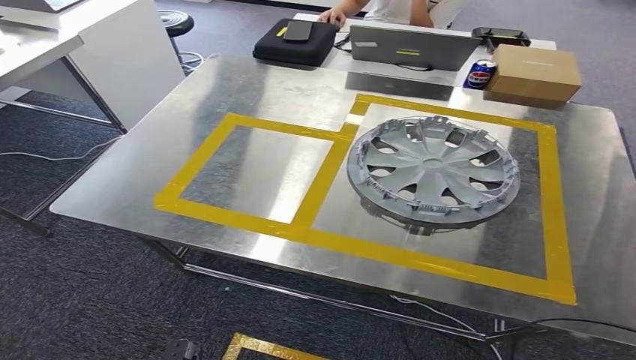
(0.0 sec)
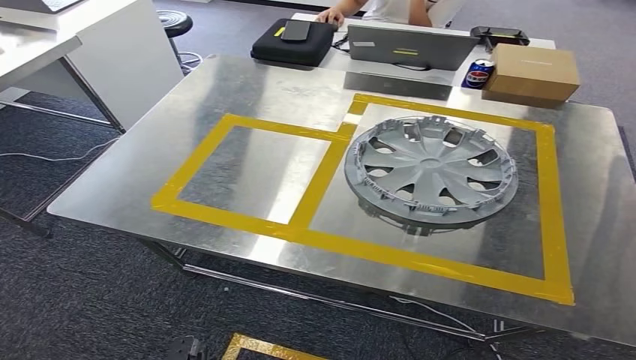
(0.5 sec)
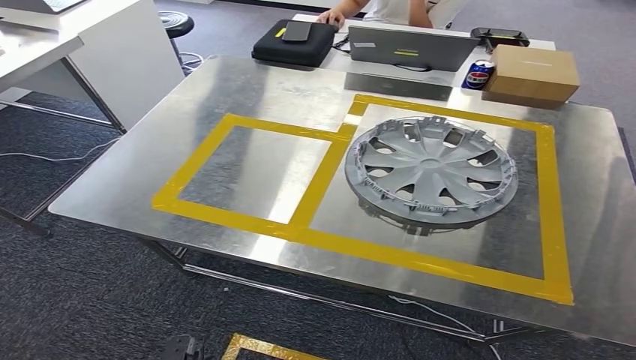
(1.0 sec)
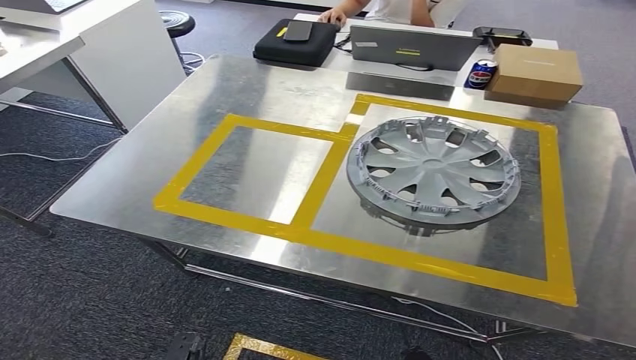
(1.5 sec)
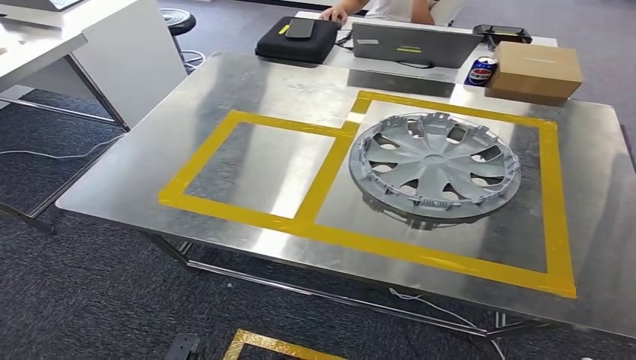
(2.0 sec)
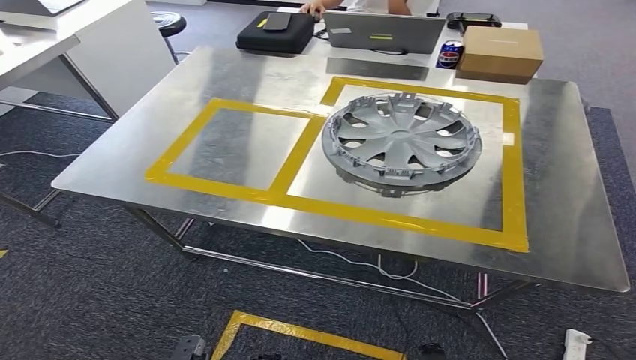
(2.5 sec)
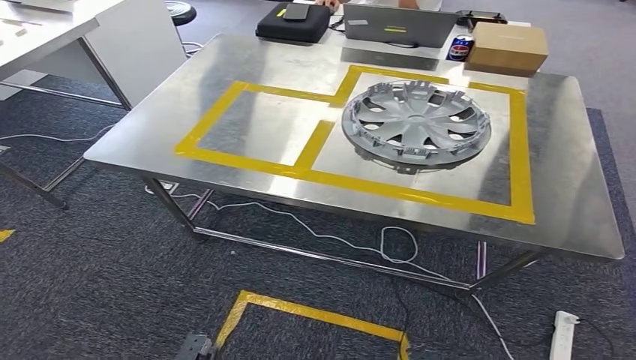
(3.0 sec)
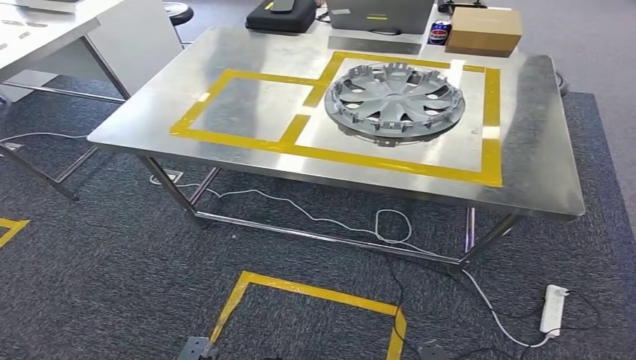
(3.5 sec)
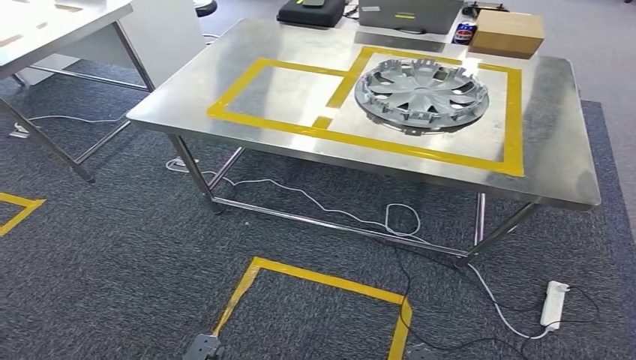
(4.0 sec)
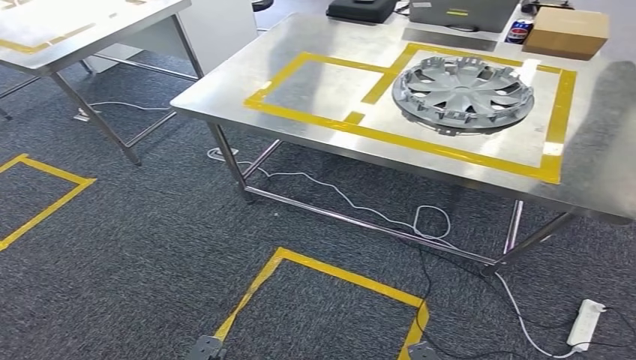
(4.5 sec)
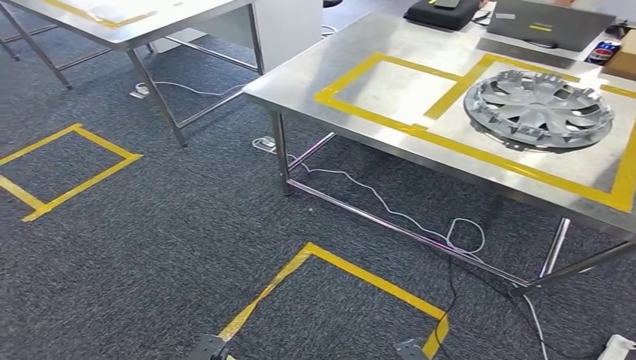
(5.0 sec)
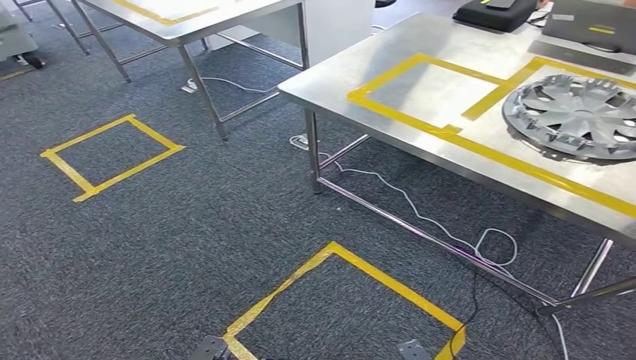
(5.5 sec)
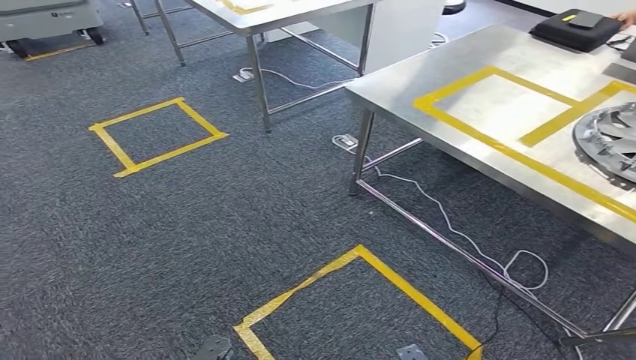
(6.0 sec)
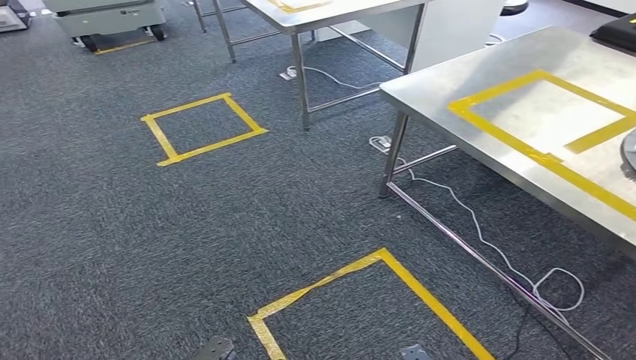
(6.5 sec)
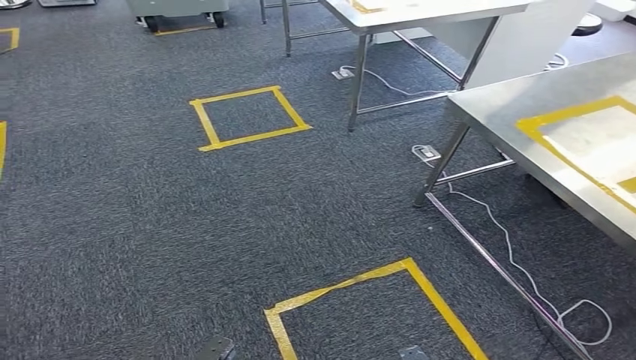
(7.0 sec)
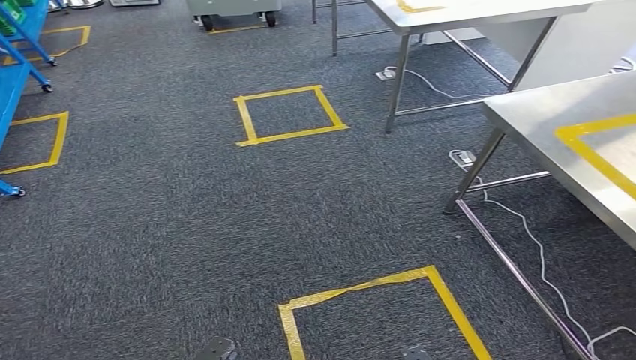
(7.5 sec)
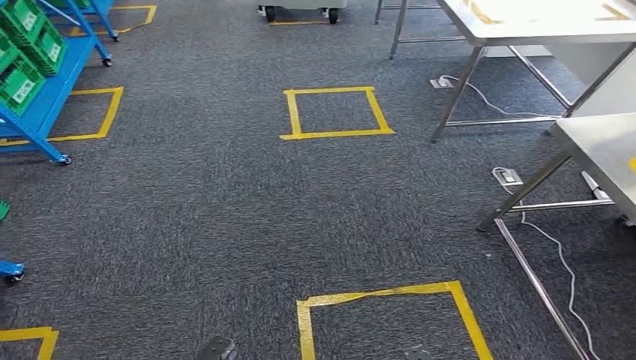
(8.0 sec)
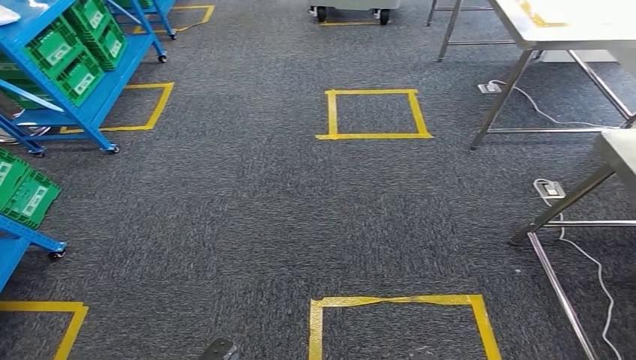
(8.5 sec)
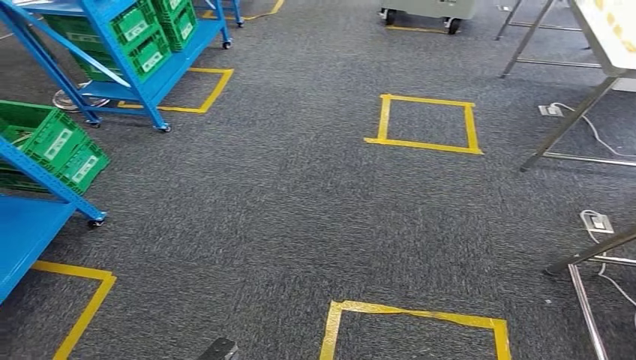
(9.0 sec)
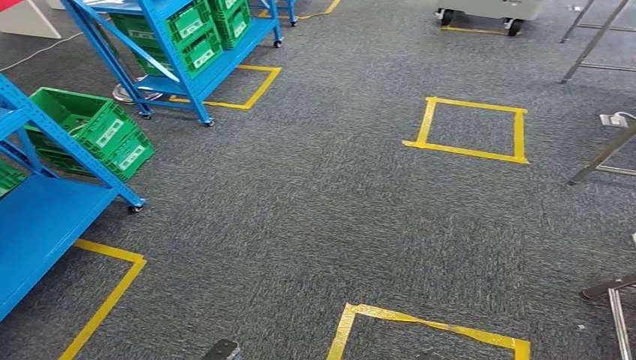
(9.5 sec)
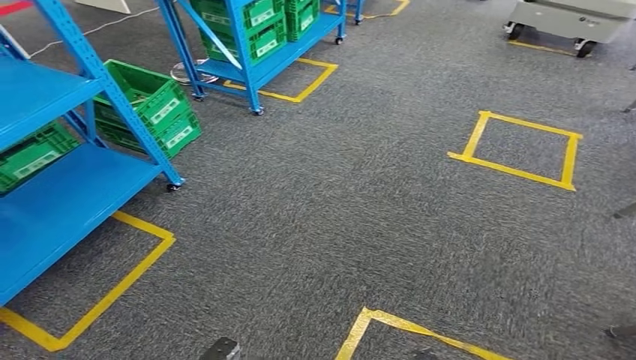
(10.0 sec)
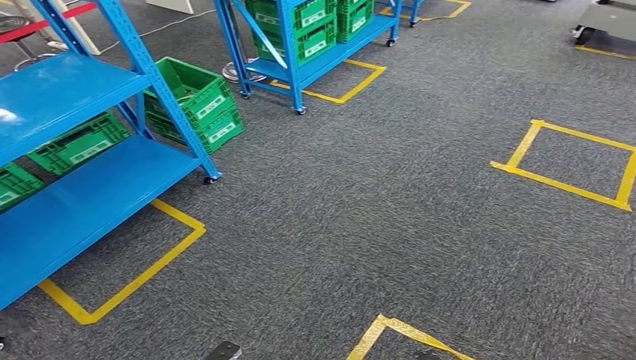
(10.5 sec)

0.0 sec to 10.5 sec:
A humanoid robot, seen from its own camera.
0.0 sec to 2.0 sec: The right hand goes about 40 cm downward and to the left.

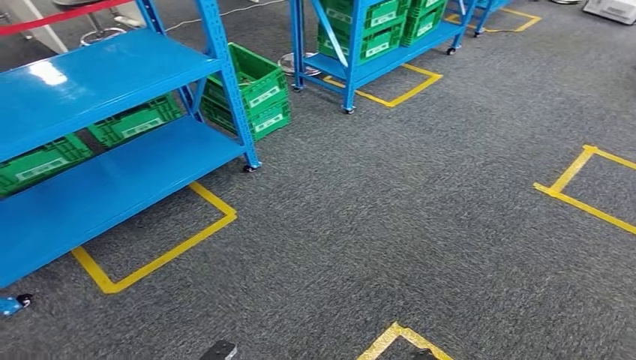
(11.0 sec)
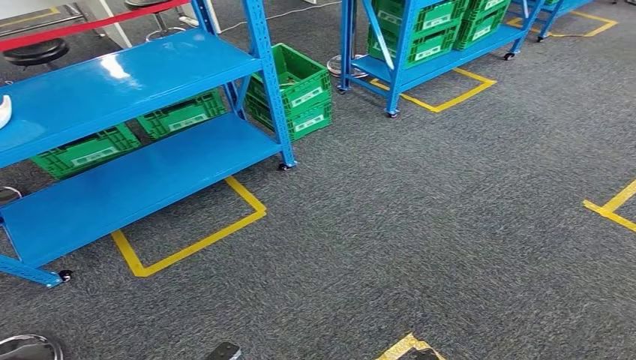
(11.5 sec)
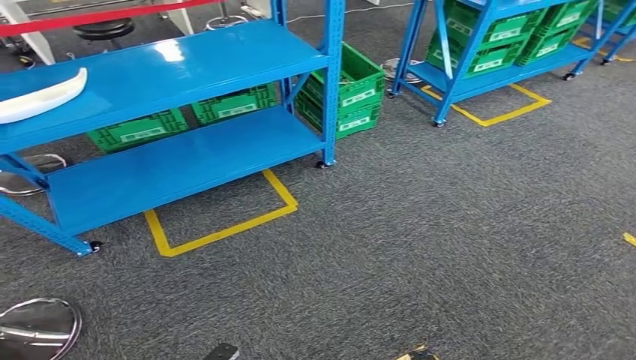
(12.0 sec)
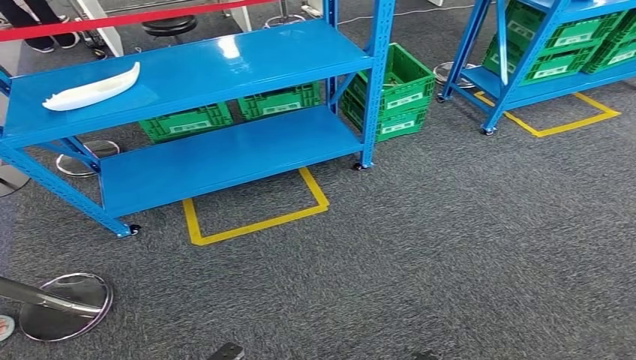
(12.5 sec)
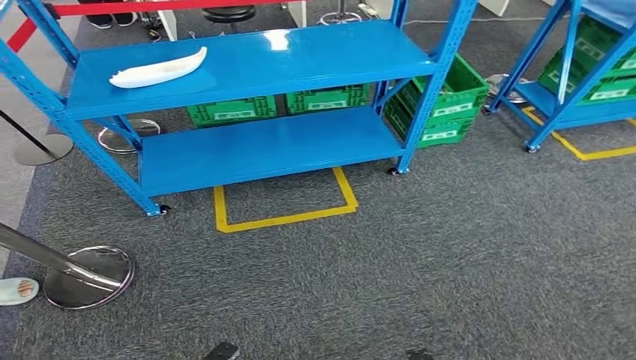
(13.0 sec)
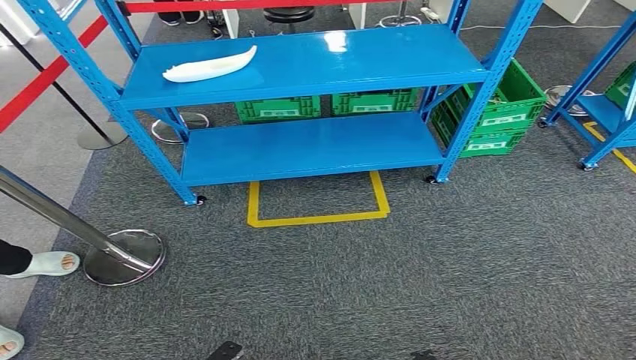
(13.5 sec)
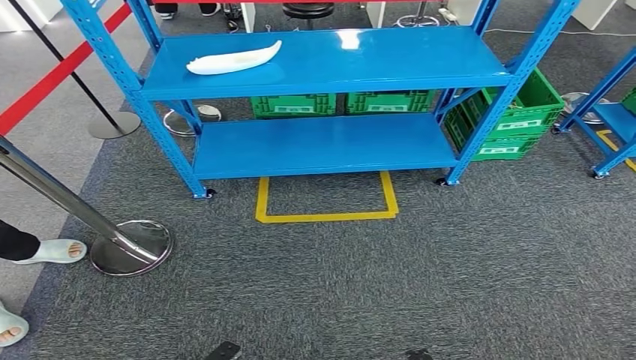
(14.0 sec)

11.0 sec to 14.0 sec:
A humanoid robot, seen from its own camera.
Step, 11.0 sec to 14.0 sec: Return to the initial position at the workbench.
